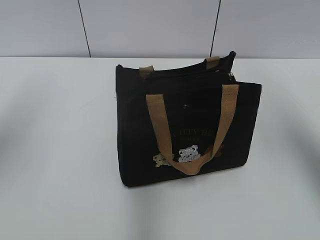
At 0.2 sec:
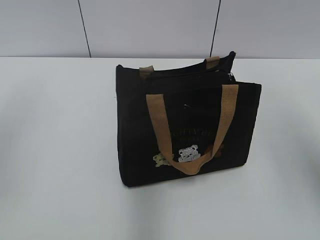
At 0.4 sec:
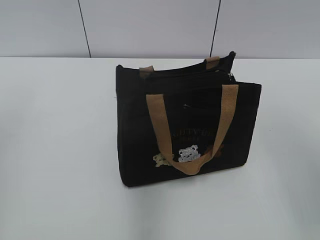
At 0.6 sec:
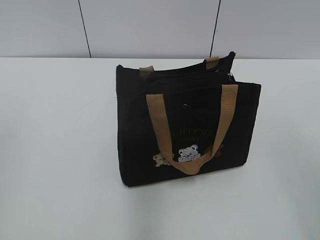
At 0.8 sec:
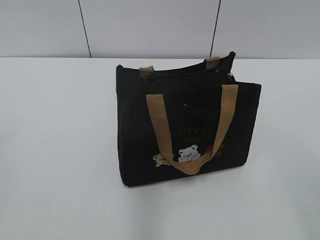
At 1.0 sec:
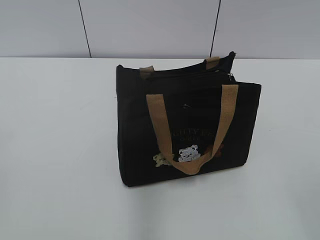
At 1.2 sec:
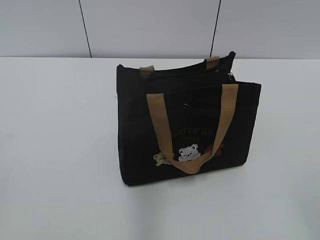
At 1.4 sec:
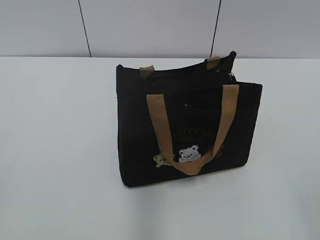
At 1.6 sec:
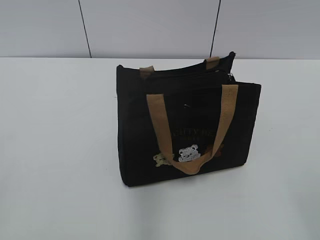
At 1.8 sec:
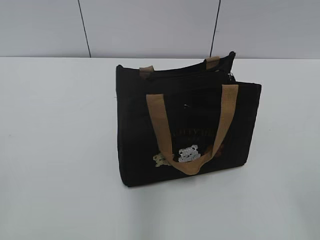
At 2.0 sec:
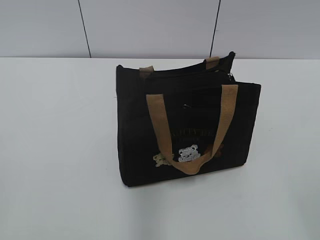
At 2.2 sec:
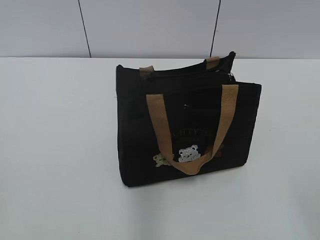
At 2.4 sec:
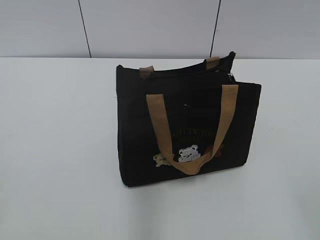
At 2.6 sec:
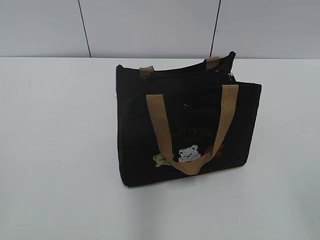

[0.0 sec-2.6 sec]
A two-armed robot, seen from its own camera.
0.0 sec to 1.2 sec: The grippers both shift backward by about 30 cm.
1.2 sec to 2.6 sec: The grippers make only small movements.

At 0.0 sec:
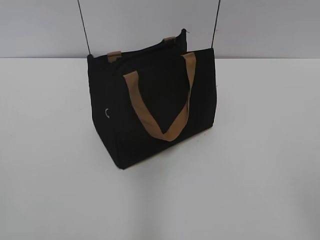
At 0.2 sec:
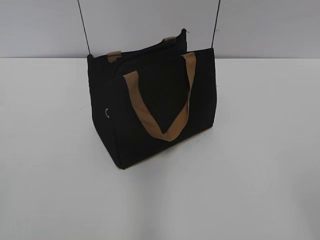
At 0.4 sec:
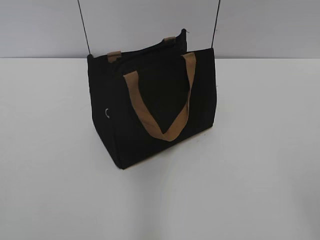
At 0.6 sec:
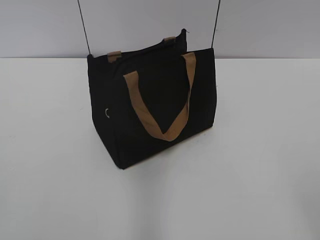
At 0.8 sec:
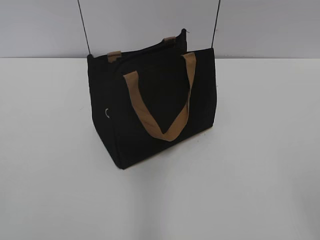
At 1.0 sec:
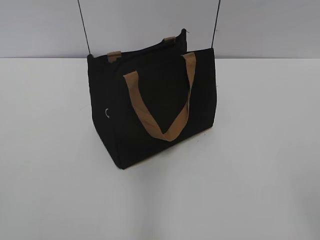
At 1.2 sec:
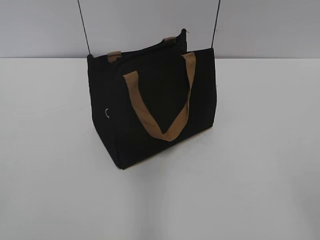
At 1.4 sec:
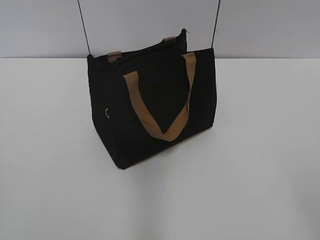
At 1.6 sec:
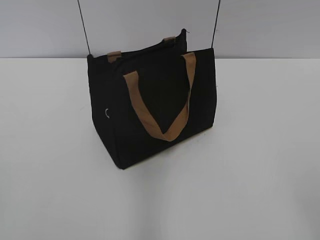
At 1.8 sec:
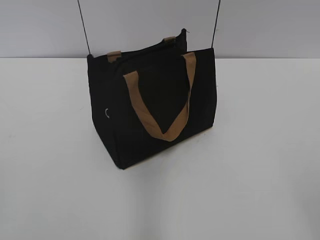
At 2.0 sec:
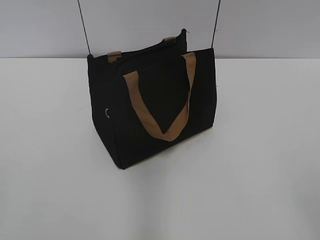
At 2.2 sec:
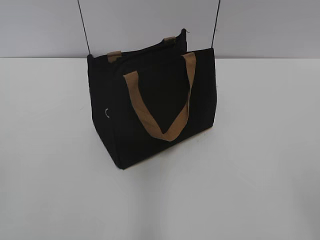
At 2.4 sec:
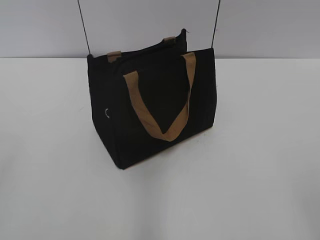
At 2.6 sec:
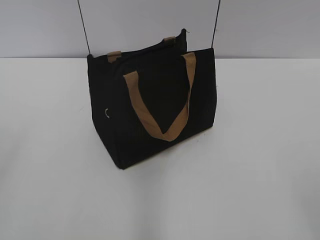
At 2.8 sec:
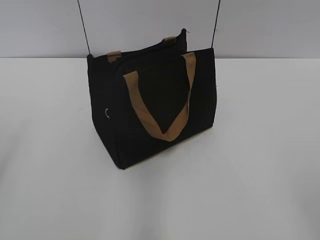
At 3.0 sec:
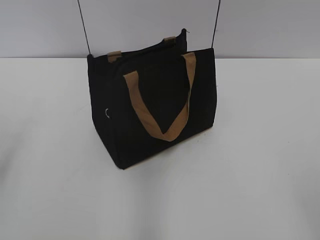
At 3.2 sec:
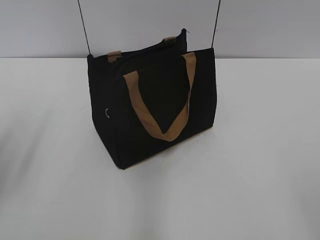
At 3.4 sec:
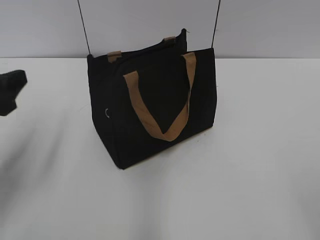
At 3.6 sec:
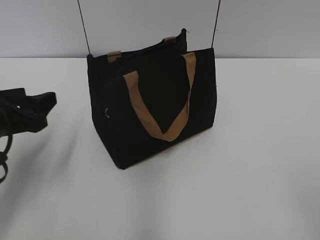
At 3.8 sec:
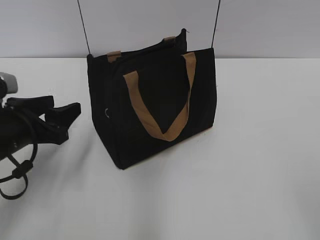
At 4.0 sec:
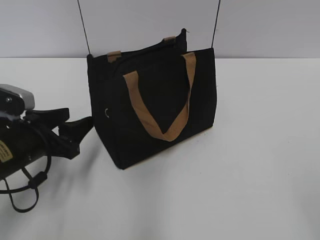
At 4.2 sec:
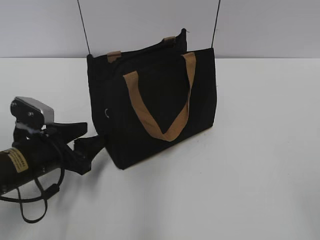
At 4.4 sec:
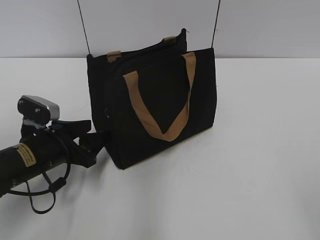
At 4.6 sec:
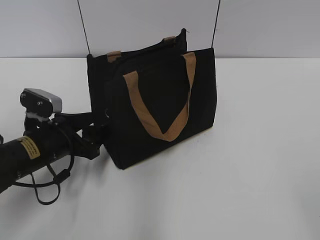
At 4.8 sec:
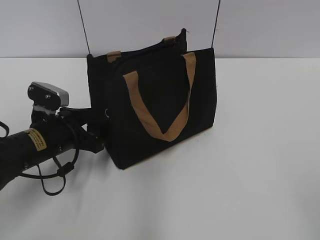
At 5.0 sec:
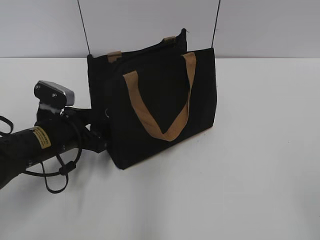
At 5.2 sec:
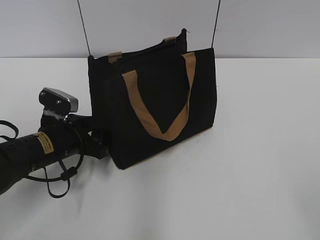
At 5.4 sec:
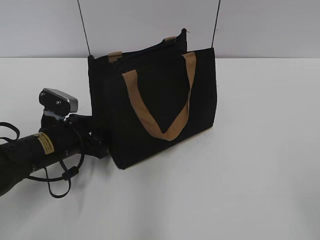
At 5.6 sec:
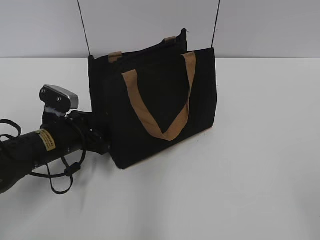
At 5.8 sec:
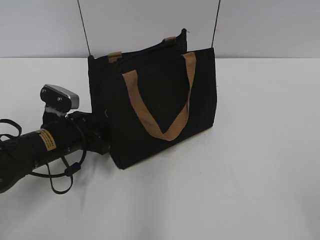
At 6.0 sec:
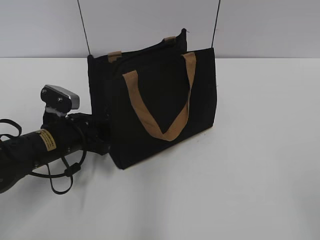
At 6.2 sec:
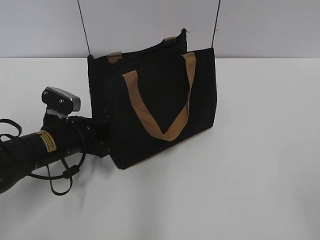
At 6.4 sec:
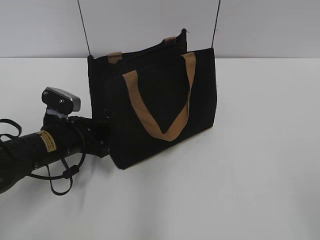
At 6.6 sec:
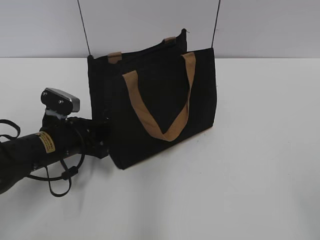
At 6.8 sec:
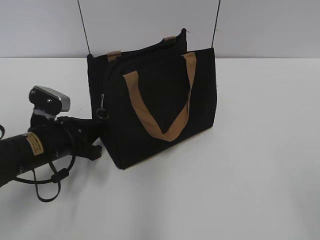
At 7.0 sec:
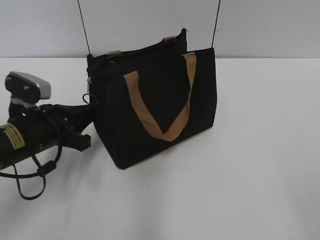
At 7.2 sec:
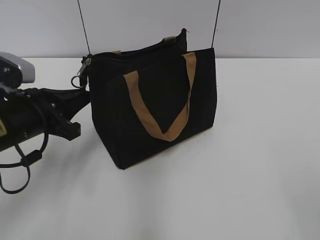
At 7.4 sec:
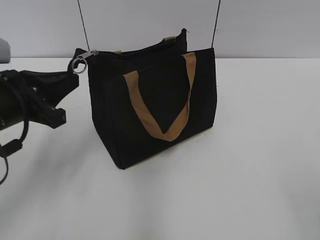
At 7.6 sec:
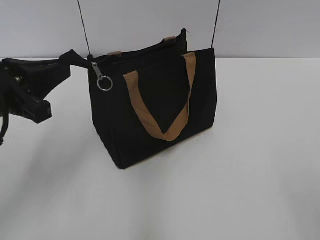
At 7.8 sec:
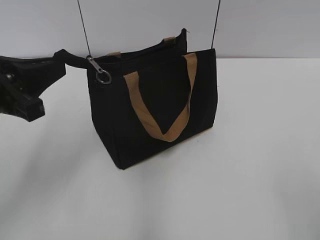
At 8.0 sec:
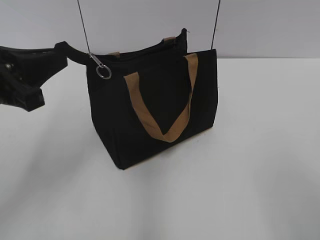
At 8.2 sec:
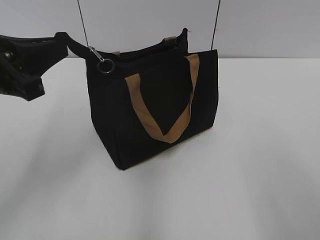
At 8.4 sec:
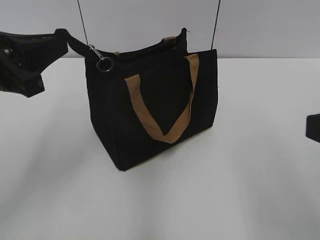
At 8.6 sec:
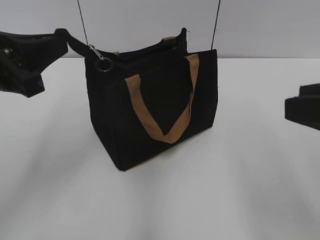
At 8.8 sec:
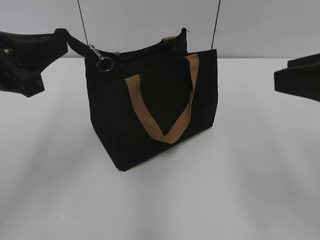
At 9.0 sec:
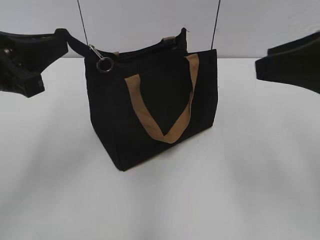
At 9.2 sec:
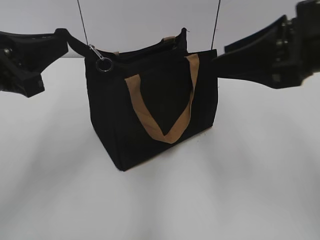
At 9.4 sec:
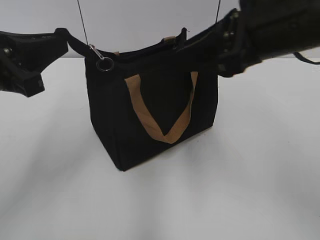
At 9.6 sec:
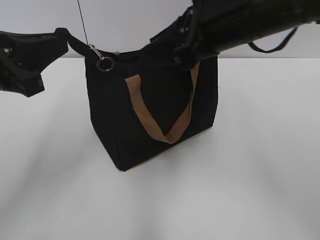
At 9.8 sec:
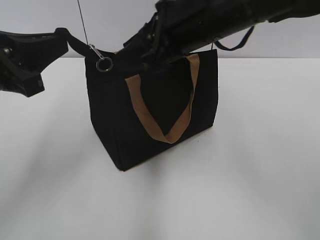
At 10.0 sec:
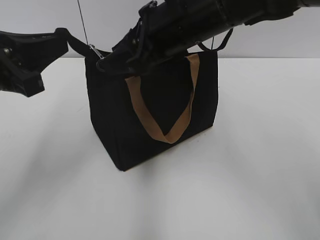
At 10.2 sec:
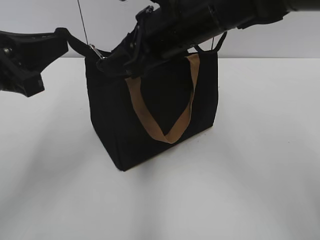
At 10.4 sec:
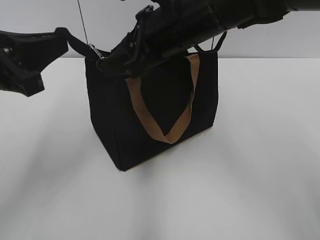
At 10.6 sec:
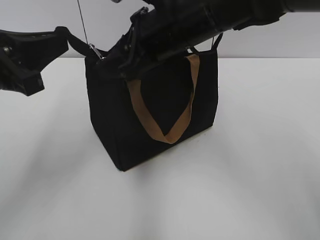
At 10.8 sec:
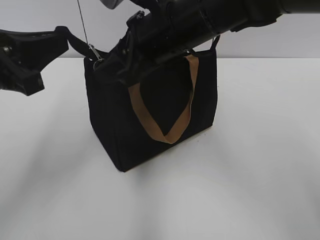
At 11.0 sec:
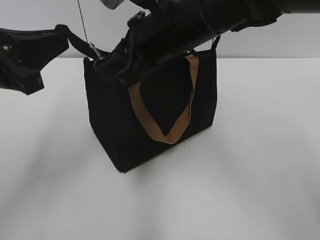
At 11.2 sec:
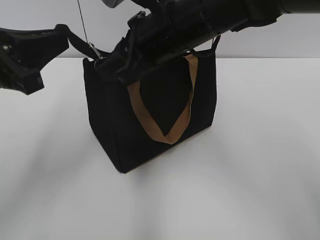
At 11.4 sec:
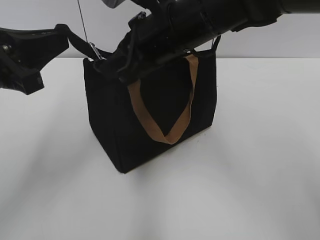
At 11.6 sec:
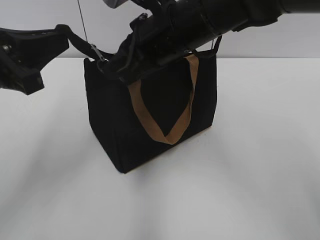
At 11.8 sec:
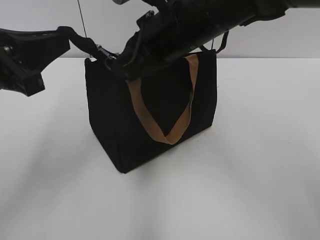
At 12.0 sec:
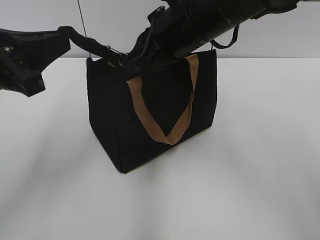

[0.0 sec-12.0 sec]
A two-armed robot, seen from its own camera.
3.0 sec to 4.4 sec: The left gripper shifts about 25 cm downward, to the right and forward.
4.4 sec to 6.0 sec: The left gripper closes.
6.0 sec to 7.6 sec: The left gripper heads upward and backward, covering approximately 15 cm.
7.6 sec to 9.0 sec: The right gripper travels forward by some 20 cm.
9.0 sec to 10.4 sec: The right gripper is displaced to the left and forward by about 20 cm.
10.4 sec to 12.0 sec: The right gripper closes.

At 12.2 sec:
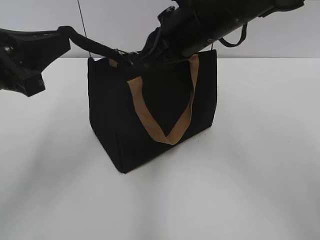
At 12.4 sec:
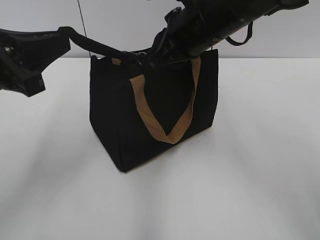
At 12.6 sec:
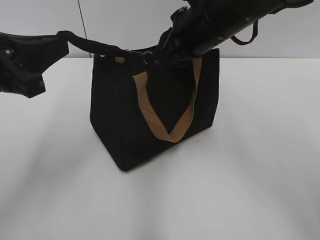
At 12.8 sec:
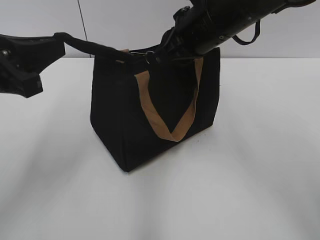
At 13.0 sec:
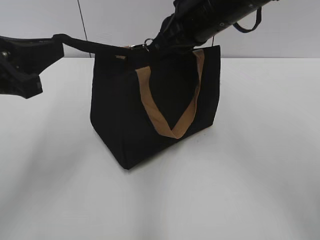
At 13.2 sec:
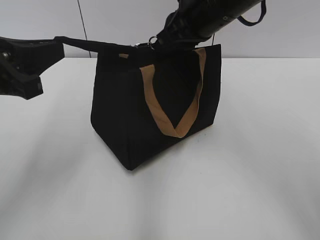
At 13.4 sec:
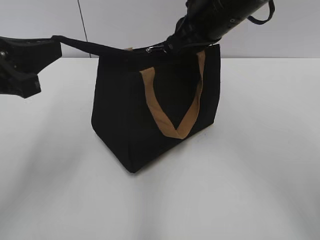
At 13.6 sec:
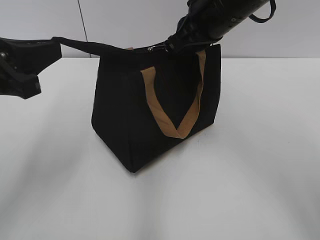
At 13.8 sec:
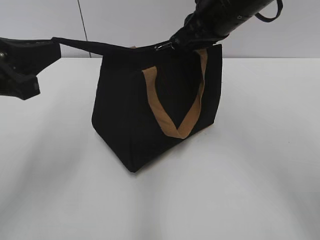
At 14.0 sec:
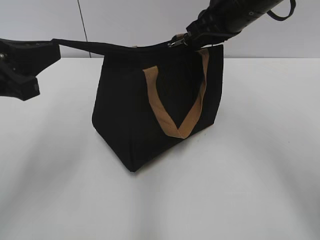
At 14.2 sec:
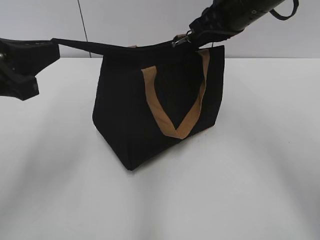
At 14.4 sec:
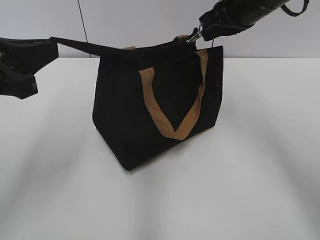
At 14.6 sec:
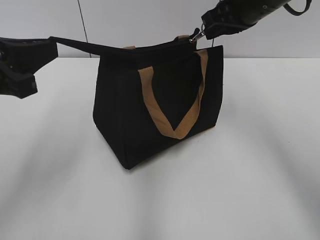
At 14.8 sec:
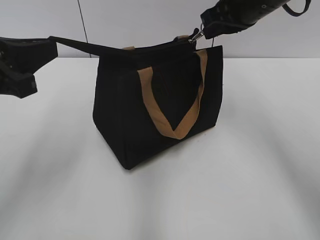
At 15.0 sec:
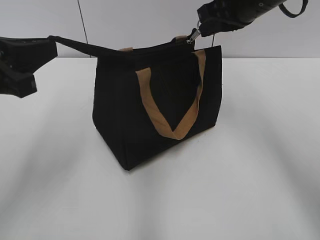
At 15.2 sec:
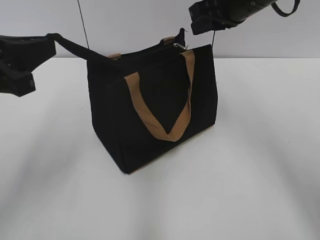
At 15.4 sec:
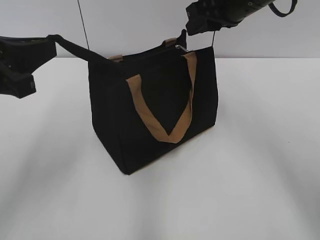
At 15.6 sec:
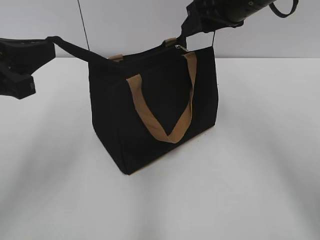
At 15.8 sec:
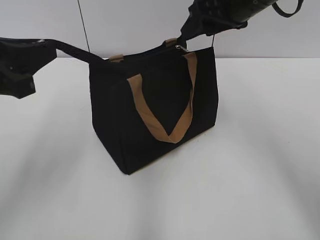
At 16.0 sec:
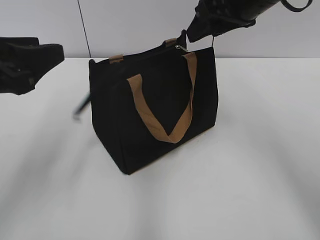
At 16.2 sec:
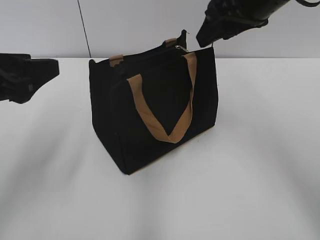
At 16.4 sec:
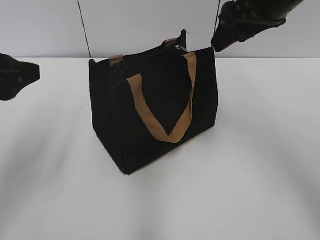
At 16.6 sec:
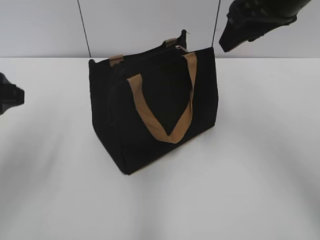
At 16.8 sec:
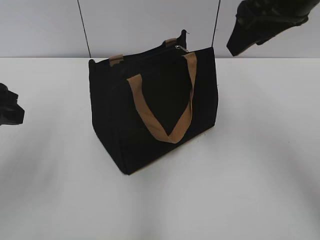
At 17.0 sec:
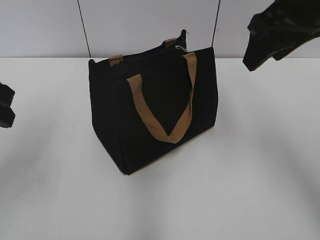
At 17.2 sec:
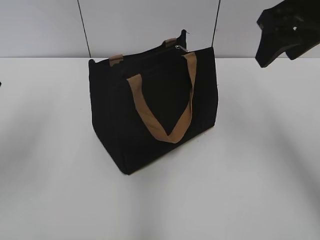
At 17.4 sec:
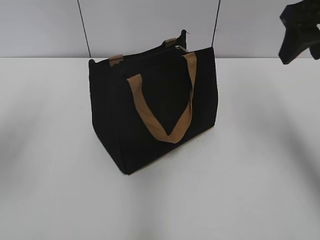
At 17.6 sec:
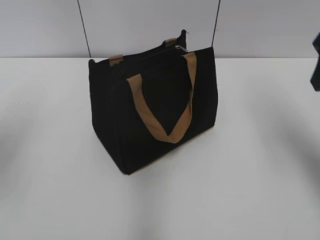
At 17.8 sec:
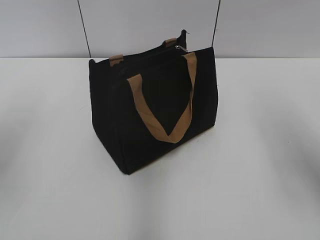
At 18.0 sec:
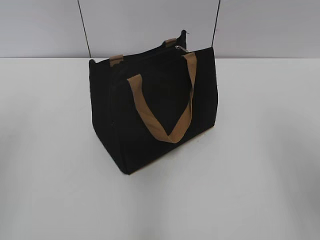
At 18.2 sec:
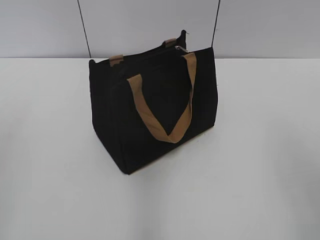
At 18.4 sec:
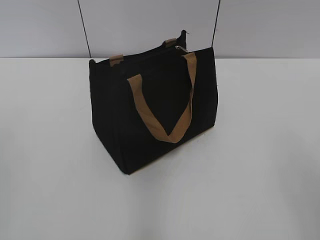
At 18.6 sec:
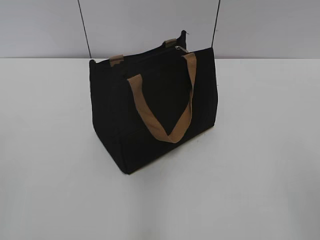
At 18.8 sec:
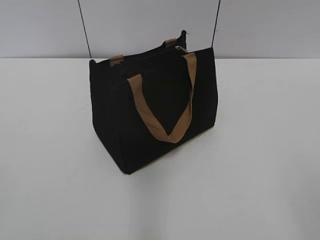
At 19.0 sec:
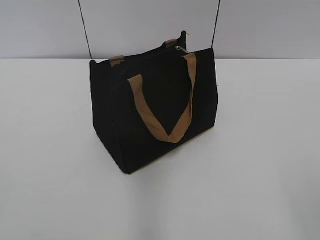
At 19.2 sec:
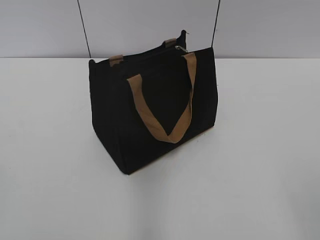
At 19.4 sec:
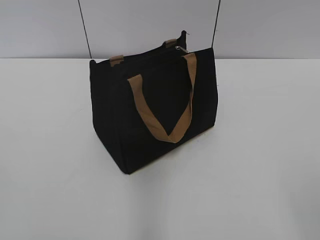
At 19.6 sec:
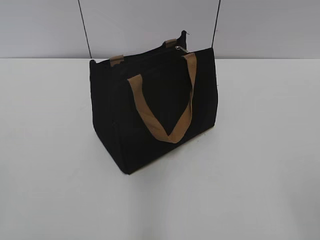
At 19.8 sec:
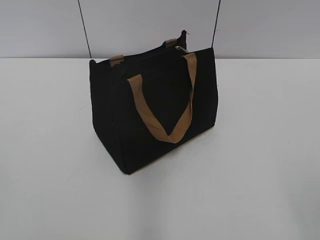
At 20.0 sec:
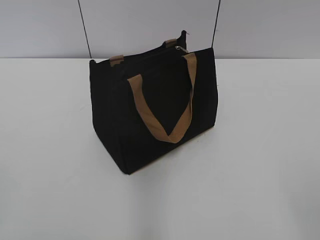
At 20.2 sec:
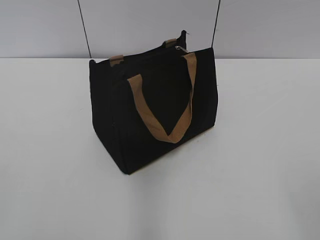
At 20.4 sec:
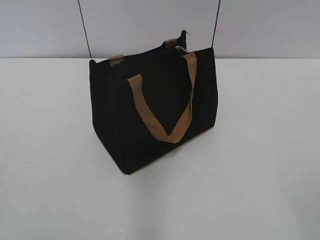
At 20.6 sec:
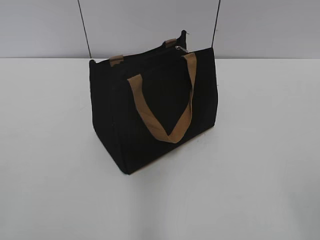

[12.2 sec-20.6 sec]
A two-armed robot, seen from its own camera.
Step, 12.2 sec to 15.0 sec: Zip up the bag with your right hand.
12.2 sec to 13.6 sec: There are only small adjustments of the grippers.
13.6 sec to 15.0 sec: The right gripper is displaced to the right by some 5 cm.
15.0 sec to 16.4 sec: The right gripper moves about 5 cm, and opens up; the left gripper opens up.
16.4 sec to 17.8 sec: The left gripper ends up some 5 cm from where it was. Meanwhile the right gripper heads backward and to the right, covering approximately 15 cm.
17.8 sec to 19.2 sec: The right gripper shifts roughly 25 cm backward.
19.2 sec to 20.6 sec: The two grippers keep their place.
